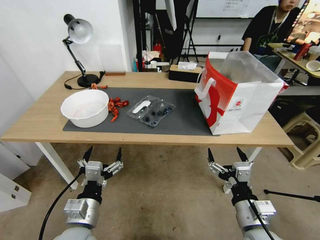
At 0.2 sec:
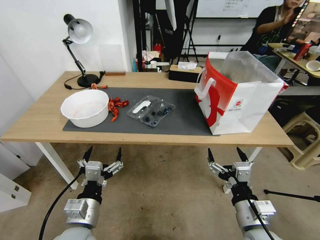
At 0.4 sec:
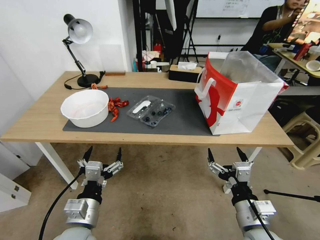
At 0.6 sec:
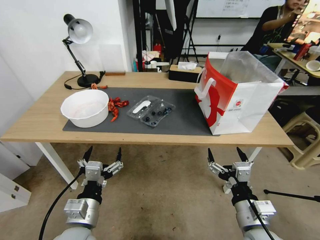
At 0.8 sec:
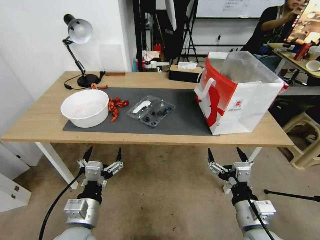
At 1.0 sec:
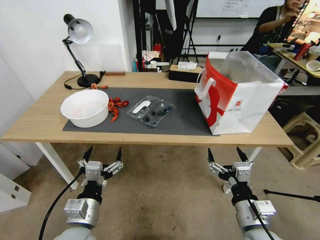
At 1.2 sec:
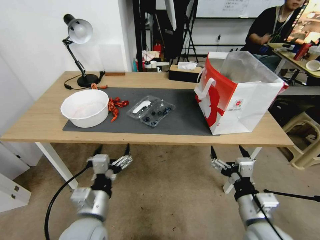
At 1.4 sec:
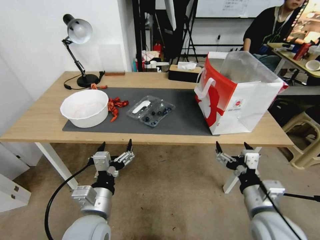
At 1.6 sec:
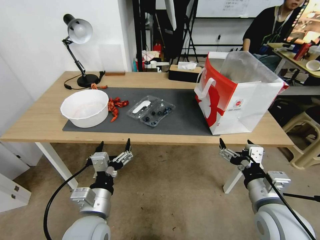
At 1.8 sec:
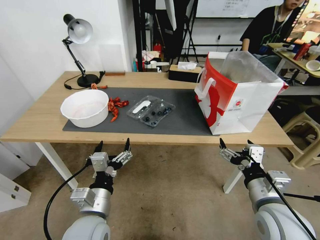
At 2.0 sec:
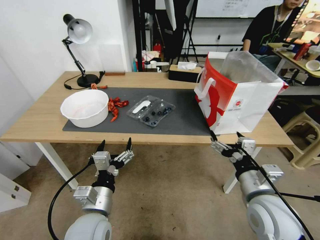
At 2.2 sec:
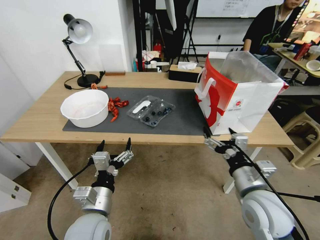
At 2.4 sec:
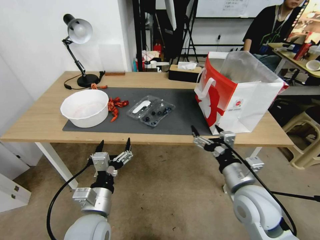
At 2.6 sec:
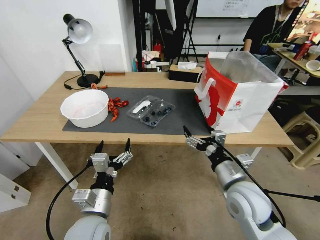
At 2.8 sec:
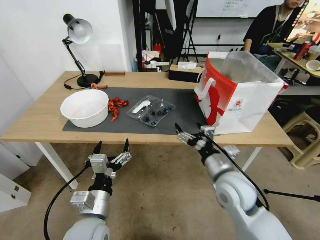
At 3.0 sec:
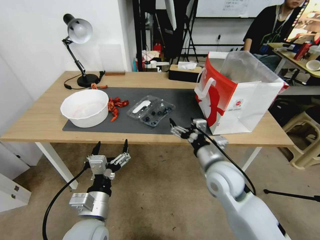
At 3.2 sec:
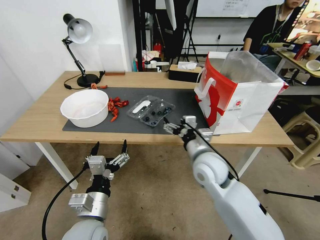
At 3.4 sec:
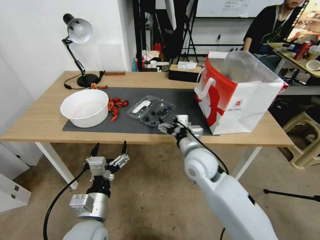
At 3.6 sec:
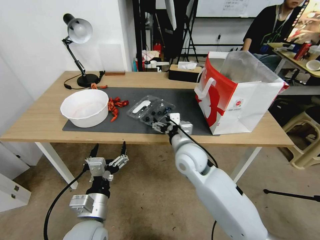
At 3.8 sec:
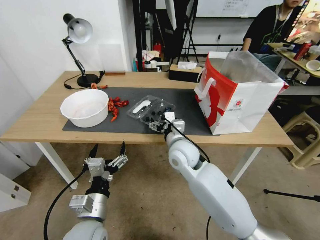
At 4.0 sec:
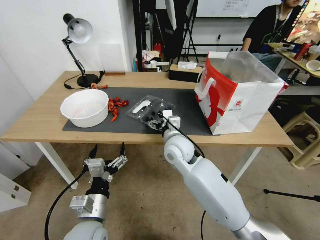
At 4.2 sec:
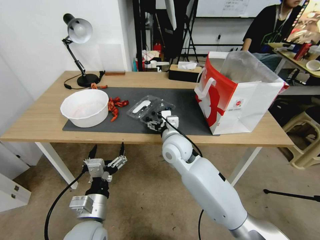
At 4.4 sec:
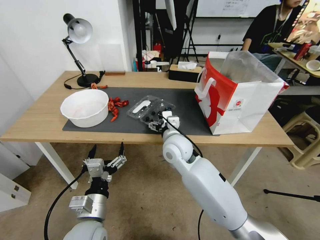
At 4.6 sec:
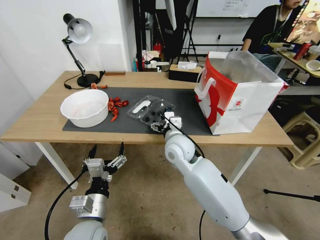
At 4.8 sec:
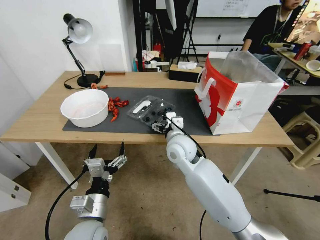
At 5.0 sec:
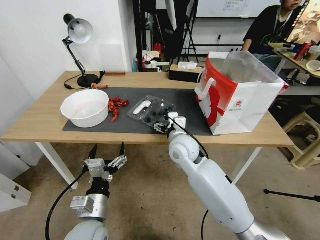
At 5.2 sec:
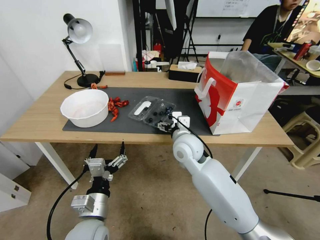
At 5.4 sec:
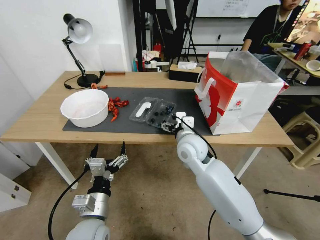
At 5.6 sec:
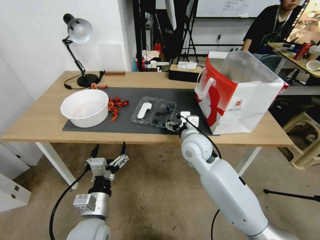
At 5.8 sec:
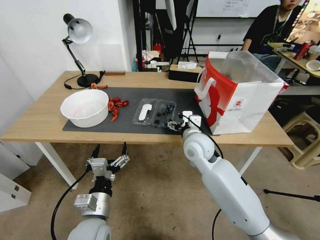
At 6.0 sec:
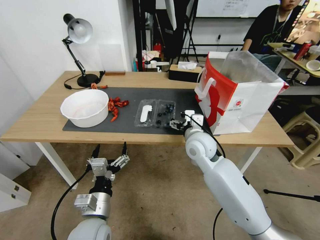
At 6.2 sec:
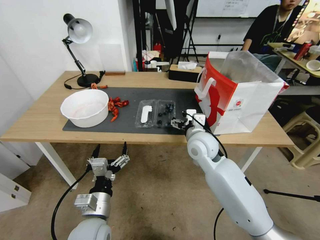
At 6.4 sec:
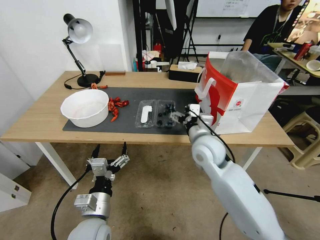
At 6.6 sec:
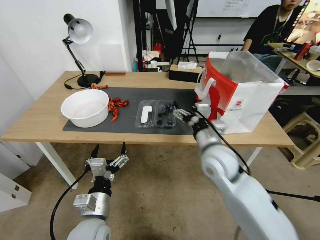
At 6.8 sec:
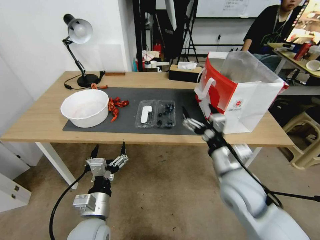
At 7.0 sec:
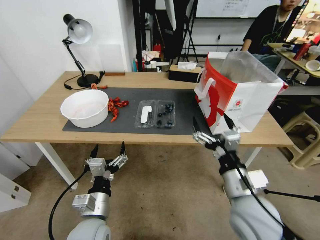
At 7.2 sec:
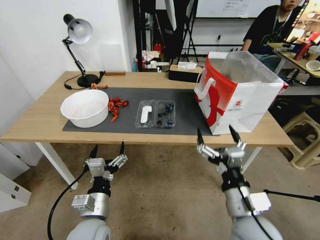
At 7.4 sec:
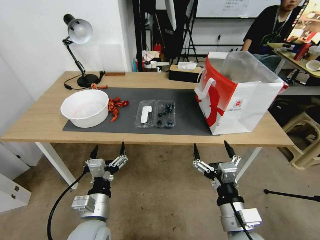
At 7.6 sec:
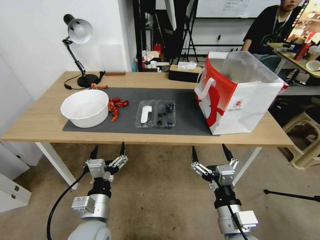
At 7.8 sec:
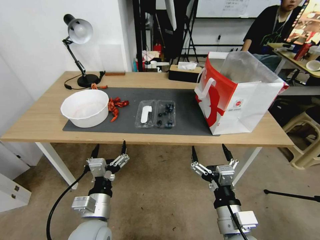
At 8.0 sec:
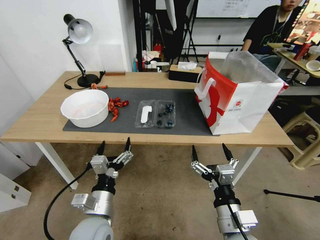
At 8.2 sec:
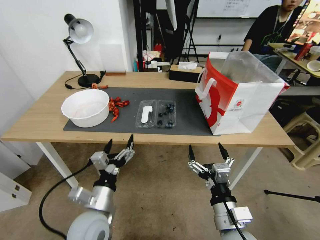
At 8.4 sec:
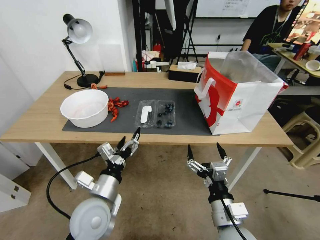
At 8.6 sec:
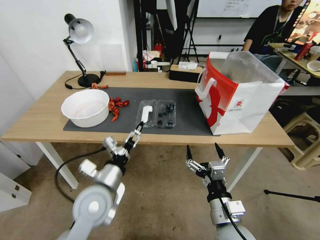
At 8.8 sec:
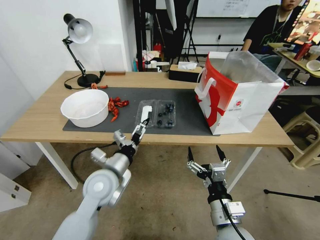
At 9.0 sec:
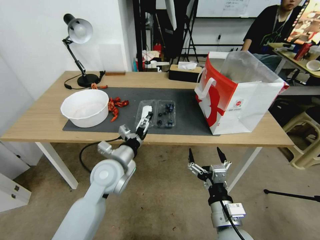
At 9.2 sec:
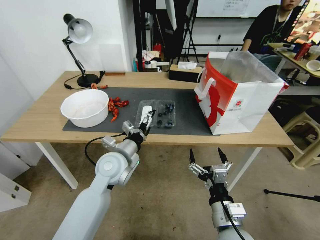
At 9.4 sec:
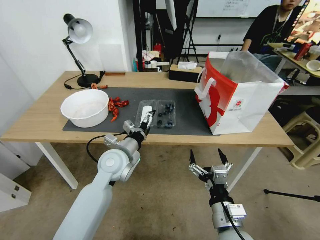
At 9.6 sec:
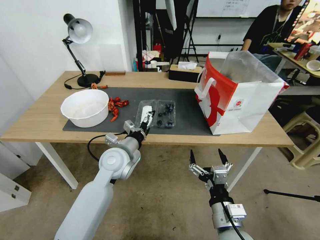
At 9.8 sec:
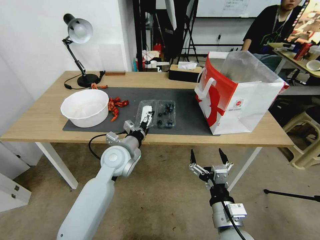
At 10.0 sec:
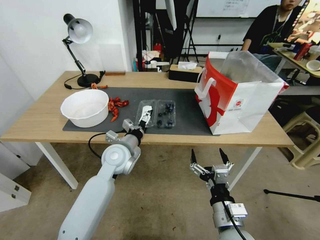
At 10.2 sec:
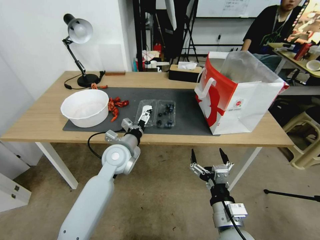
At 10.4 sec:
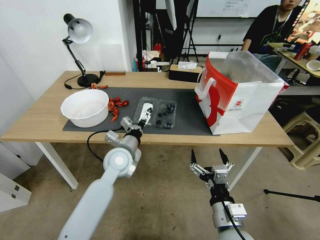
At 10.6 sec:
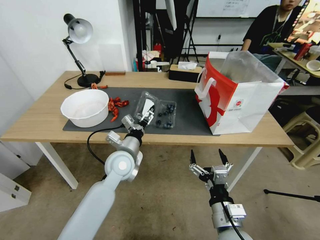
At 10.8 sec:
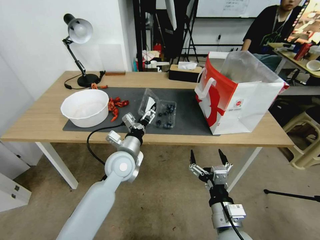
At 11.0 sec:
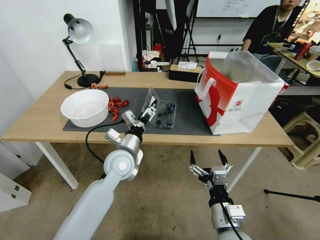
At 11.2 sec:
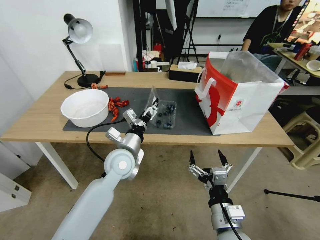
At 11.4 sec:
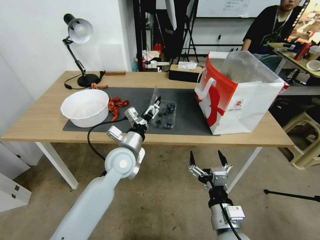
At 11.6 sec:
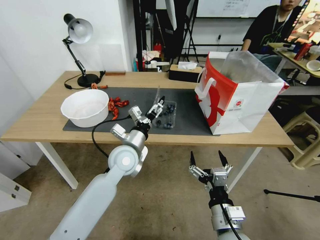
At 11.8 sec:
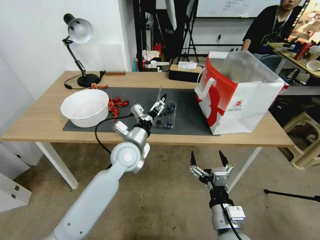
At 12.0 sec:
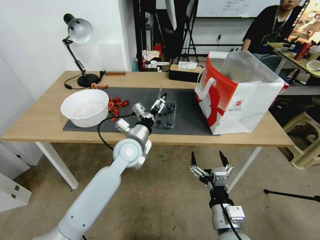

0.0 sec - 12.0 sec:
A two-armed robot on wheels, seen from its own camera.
Task of the whole recording: Close the takeout container lid, then place the container into the takeout bag.
1.6 sec - 3.0 sec: The right gripper travels forward and to the left by about 15 cm.
3.0 sec - 4.4 sec: The right gripper moves to the left and forward, some 15 cm.
4.4 sec - 6.0 sec: The right gripper travels to the right by about 5 cm.
6.0 sec - 7.6 sec: The right gripper travels backward by about 25 cm.
7.6 sec - 9.0 sec: The left gripper heads forward, covering approximately 15 cm.
9.0 sec - 10.4 sec: The left gripper ends up some 5 cm from where it was.
10.4 sec - 12.0 sec: The grippers move only a little.

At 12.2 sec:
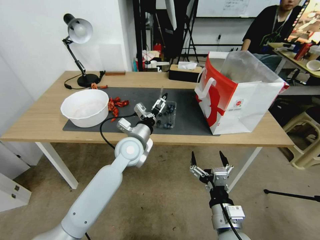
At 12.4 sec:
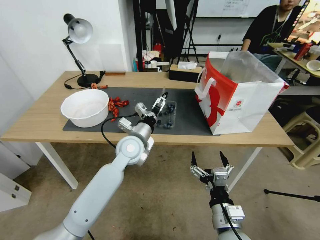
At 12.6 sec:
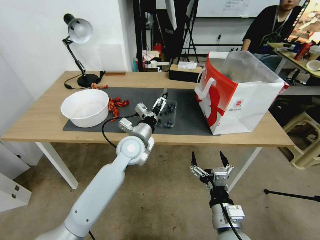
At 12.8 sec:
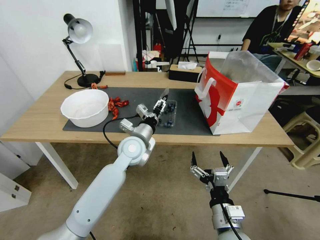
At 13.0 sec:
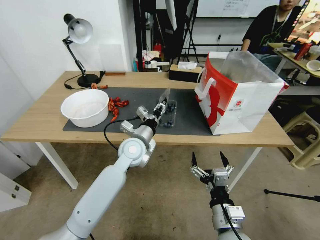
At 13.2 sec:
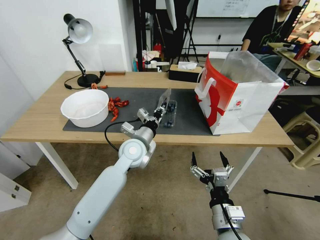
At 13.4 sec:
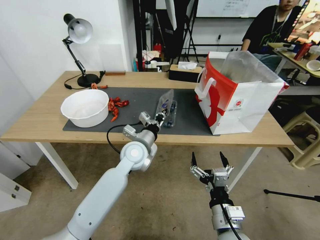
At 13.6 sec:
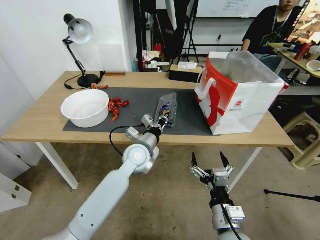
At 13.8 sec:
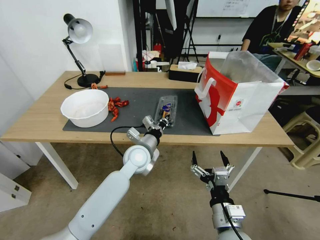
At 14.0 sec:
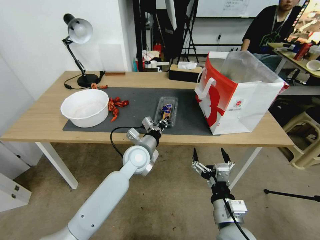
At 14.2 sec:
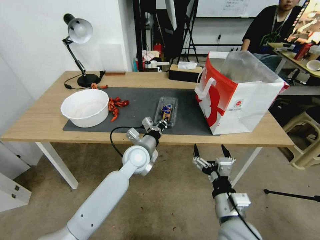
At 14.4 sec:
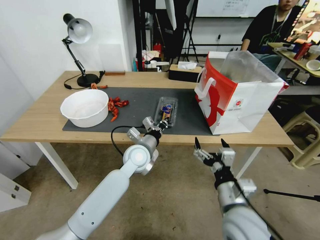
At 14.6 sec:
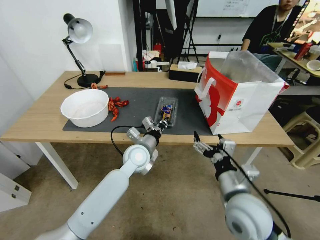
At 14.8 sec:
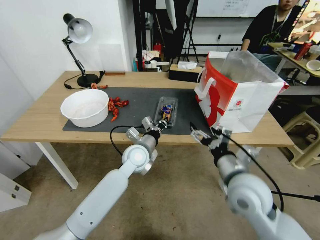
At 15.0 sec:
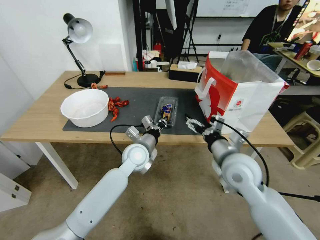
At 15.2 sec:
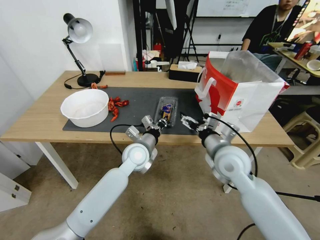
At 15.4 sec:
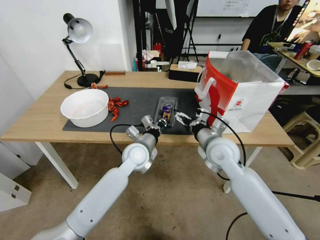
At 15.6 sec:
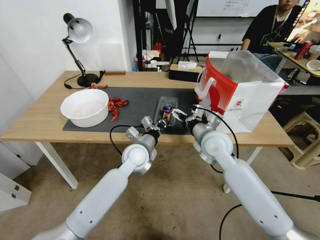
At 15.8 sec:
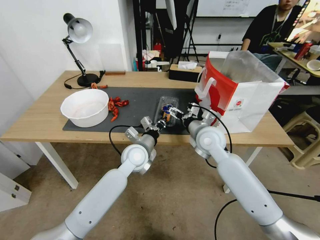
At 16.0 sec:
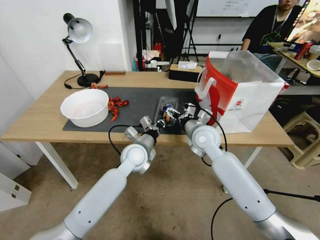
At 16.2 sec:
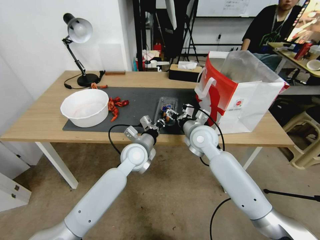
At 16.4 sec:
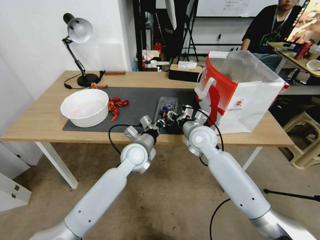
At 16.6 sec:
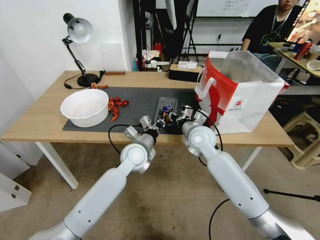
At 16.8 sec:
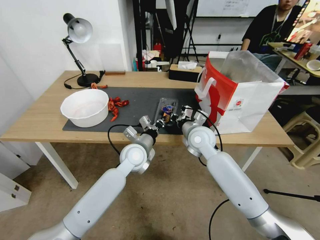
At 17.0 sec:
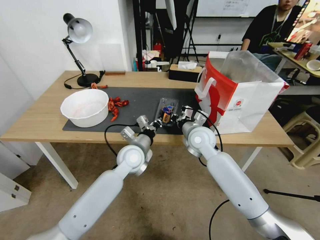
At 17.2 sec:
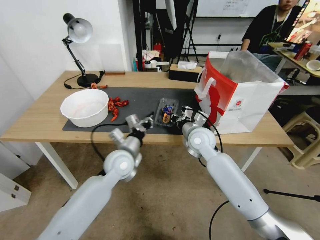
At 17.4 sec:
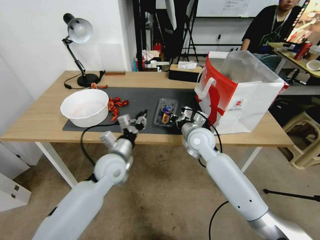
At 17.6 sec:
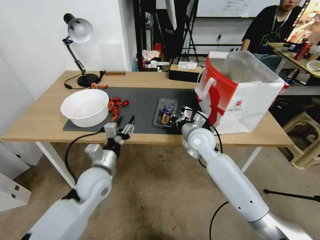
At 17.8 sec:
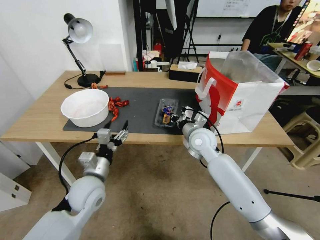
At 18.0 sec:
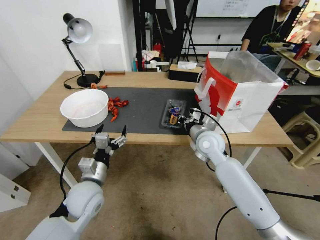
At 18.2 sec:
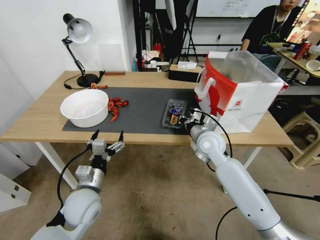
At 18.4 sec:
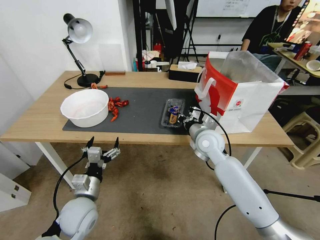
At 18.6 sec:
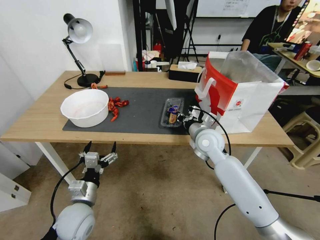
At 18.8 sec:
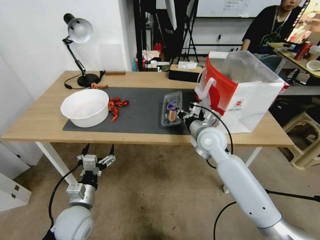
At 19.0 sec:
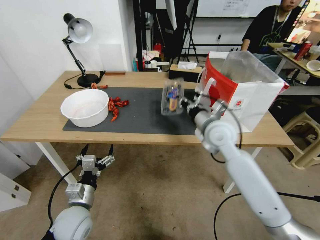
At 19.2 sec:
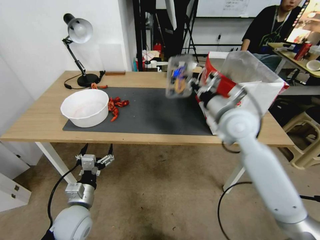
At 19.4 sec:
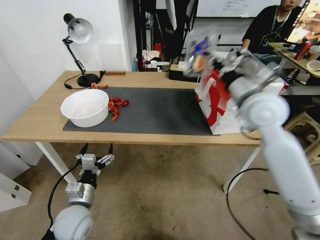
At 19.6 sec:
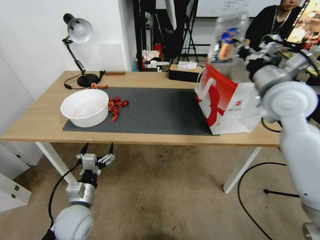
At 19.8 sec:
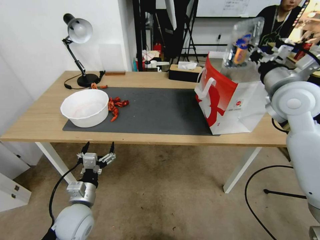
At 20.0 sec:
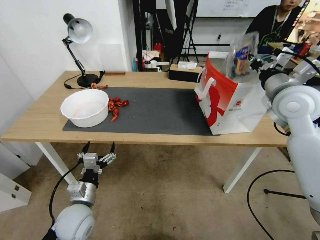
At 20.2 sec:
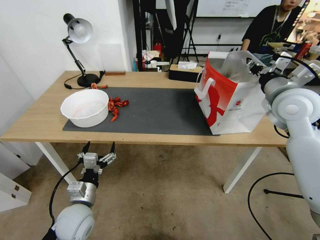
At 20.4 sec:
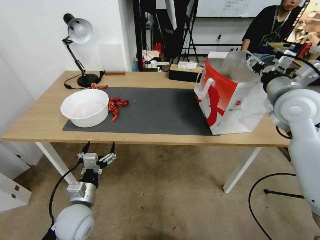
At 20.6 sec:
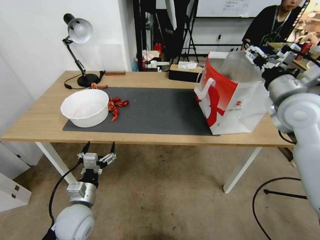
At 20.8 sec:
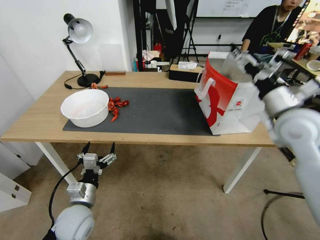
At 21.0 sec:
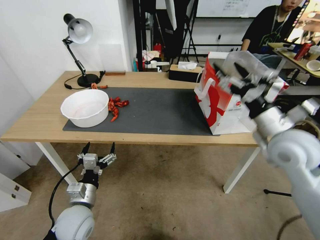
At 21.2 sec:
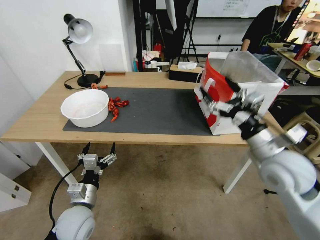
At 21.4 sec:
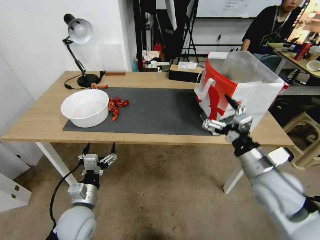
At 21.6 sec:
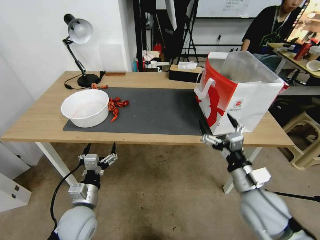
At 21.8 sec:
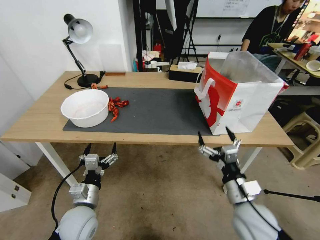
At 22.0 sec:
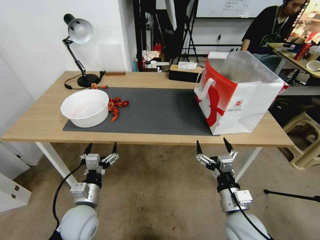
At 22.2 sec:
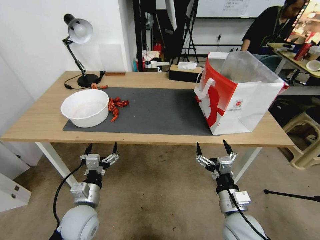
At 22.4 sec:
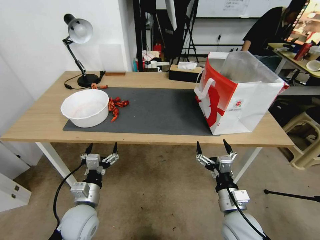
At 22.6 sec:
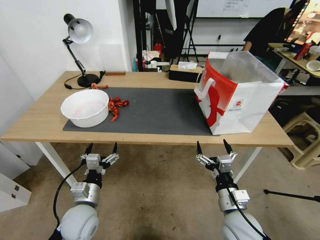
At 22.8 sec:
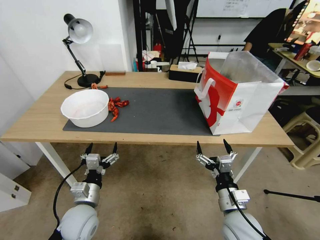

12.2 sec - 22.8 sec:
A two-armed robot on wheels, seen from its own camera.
Task of the whole recording: Close the takeout container lid, then place the container into the takeout bag.
12.2 sec - 13.8 sec: The left gripper closes up.
13.8 sec - 15.2 sec: The right gripper heads forward and upward, covering approximately 20 cm.
15.2 sec - 16.8 sec: The right gripper shifts approximately 10 cm forward and to the left, and closes its fingers.
16.8 sec - 18.2 sec: The left gripper goes approximately 20 cm backward and to the left, and opens up.
18.2 sec - 19.8 sec: The right gripper moves upward and to the right, roughly 25 cm, while the left gripper changes place by some 5 cm.
19.8 sec - 21.2 sec: The right gripper travels backward and downward by roughly 15 cm, and opens its fingers.
21.2 sec - 22.8 sec: The right gripper heads downward, backward and to the left, covering some 20 cm.
